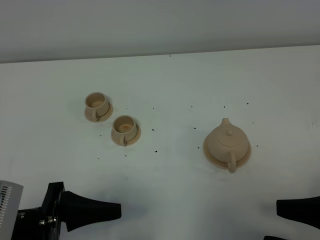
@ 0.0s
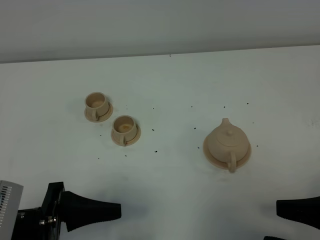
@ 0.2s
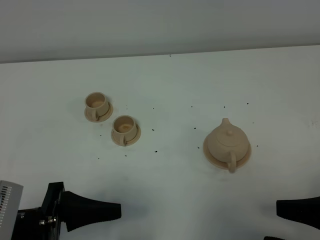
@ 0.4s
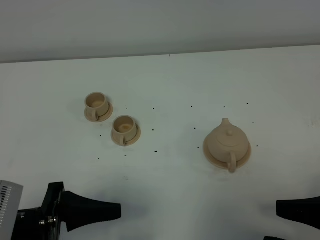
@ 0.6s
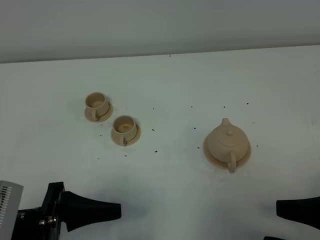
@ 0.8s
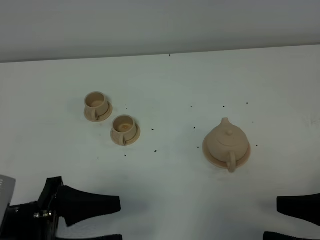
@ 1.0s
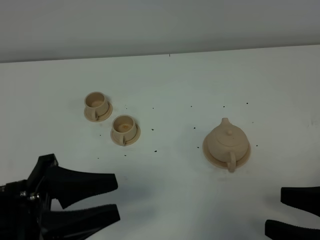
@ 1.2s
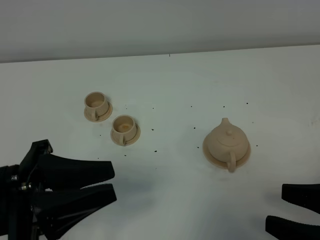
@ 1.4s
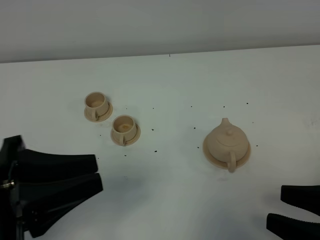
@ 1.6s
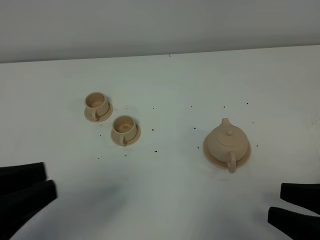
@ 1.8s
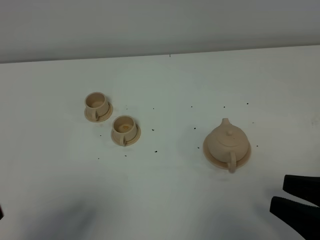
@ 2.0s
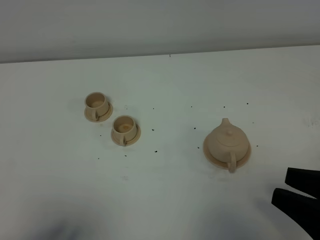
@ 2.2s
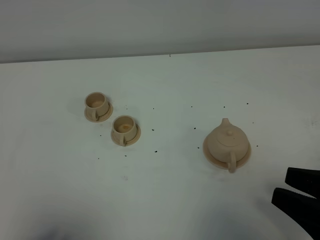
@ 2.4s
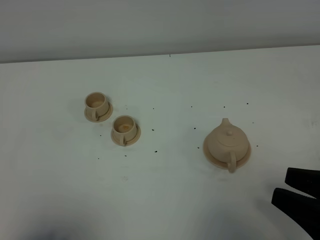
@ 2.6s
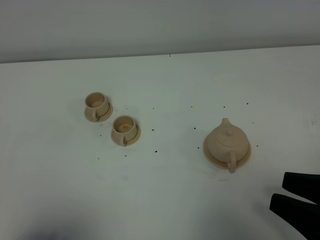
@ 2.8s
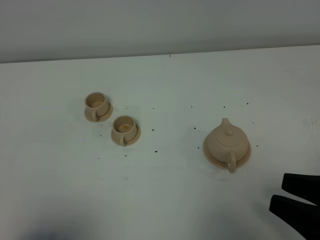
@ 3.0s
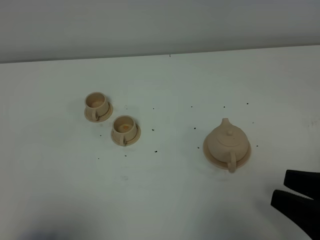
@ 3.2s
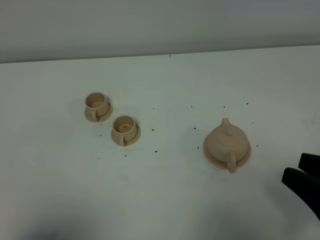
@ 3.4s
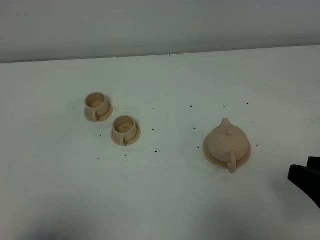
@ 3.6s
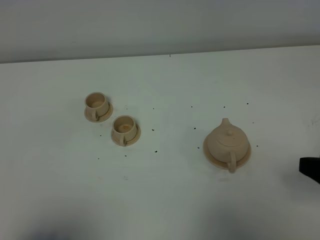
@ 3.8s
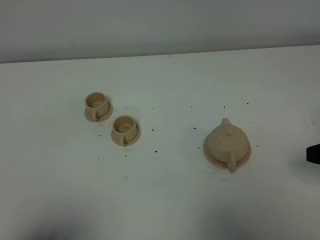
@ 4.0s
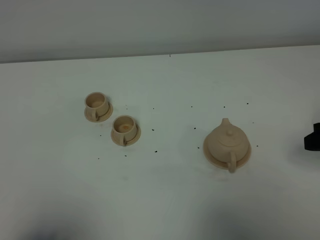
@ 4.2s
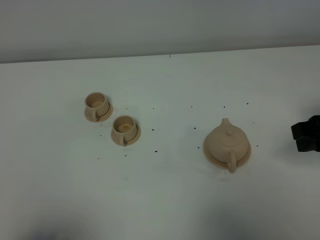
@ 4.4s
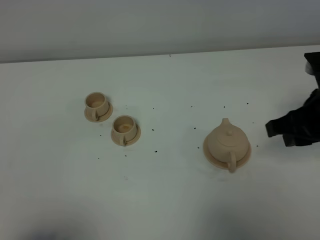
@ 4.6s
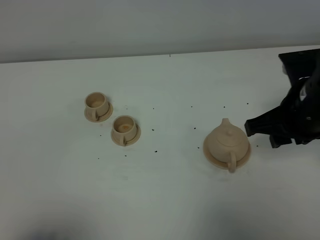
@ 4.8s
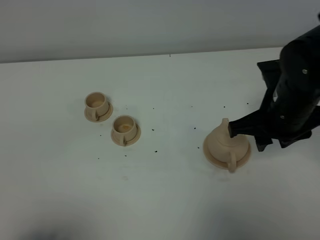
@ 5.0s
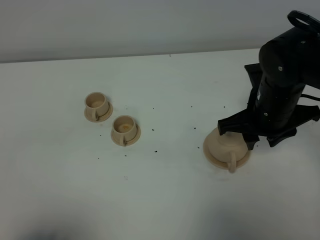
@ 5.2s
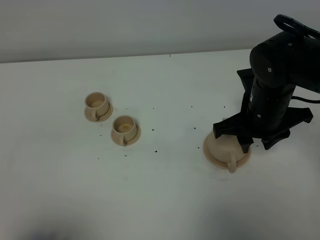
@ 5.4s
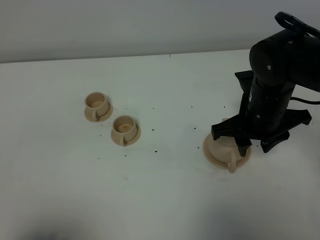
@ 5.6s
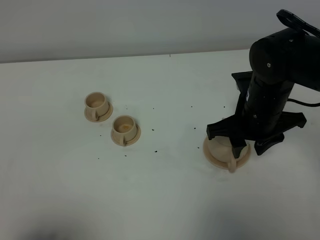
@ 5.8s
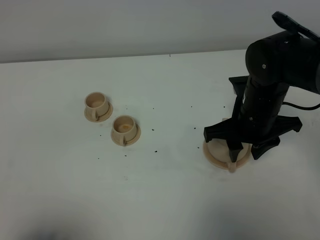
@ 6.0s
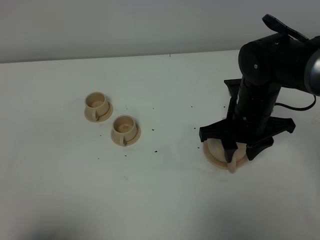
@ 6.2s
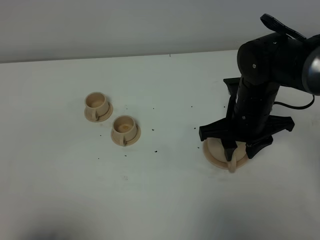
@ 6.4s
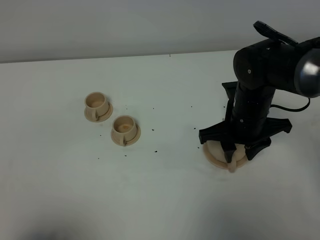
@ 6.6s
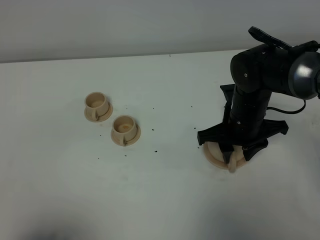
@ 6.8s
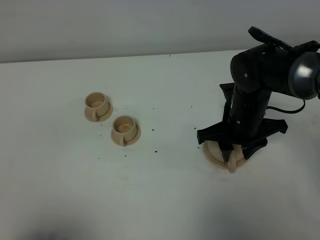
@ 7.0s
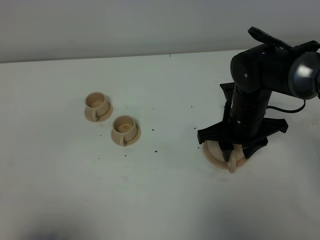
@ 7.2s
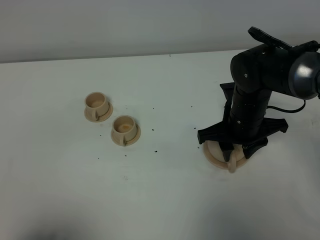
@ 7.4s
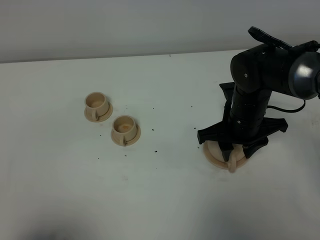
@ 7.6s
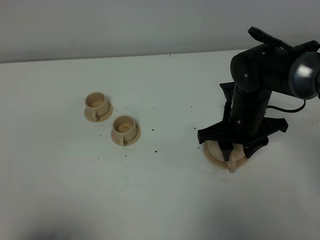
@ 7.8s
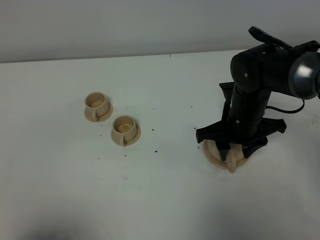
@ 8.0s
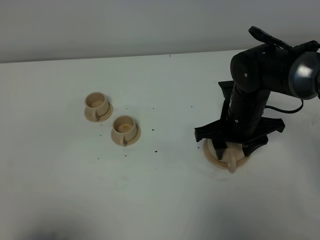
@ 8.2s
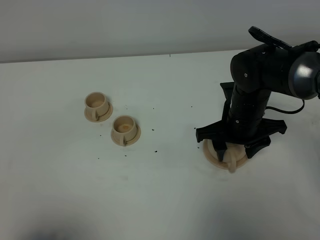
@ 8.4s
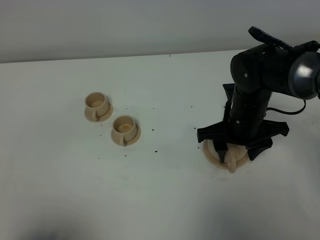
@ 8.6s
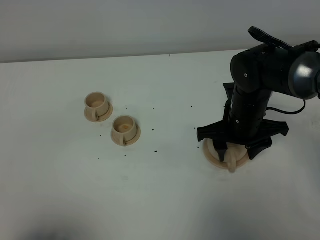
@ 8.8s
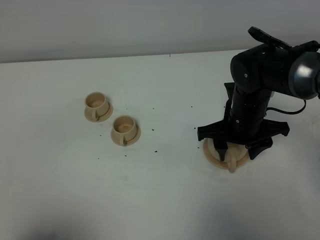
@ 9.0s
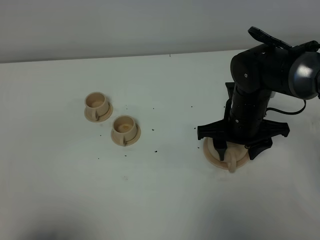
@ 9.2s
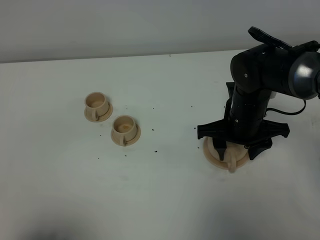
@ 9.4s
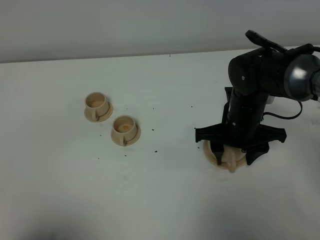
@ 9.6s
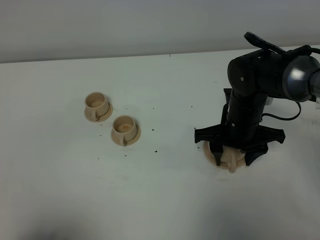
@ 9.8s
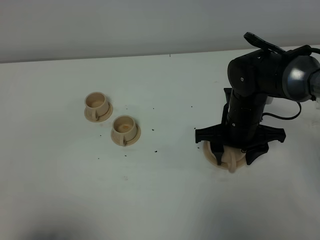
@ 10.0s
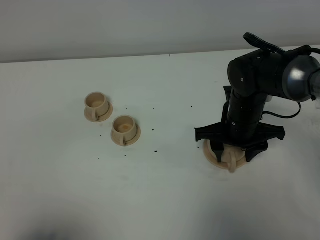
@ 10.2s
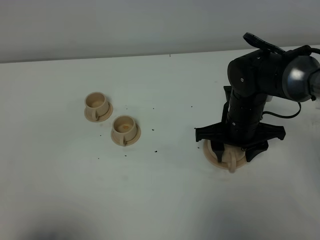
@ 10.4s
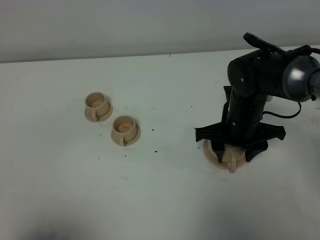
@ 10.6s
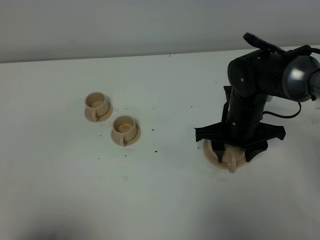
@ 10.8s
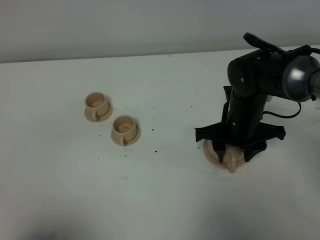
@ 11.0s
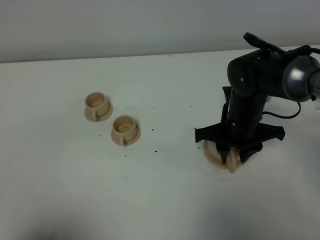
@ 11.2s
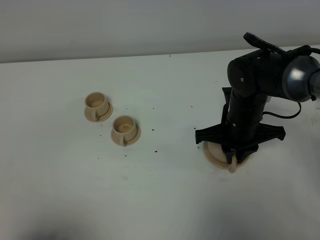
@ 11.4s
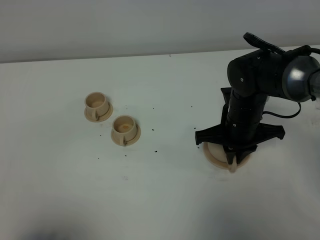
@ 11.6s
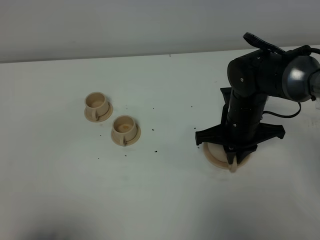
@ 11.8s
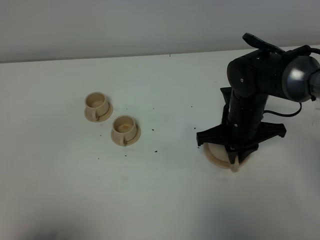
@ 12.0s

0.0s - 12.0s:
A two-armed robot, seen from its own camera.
Task of the whole recording: grasp the brown teapot and pour the tea into the two brown teacups one by one, put the brown teapot back in its original place.
0.0s - 1.6s: The left gripper is displaced upward by some 10 cm, and closes its fingers.
1.6s - 3.0s: The left gripper goes some 10 cm backward and to the left.
3.0s - 4.4s: The right gripper is displaced forward by about 15 cm.
4.4s - 6.0s: The right gripper moves to the left, downward and forward, about 15 cm.
6.0s - 9.0s: The grippers make only small movements.
9.0s - 10.4s: The two grippers keep their place.
10.4s - 12.0s: The right gripper closes up.

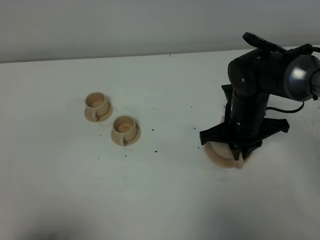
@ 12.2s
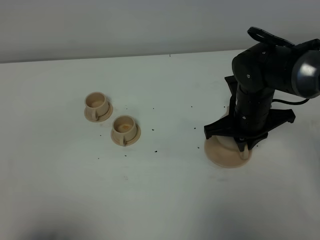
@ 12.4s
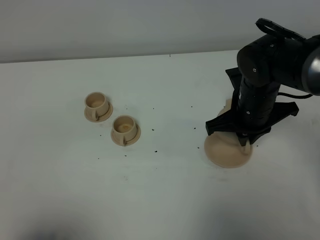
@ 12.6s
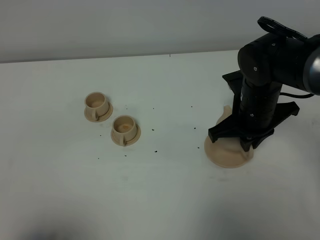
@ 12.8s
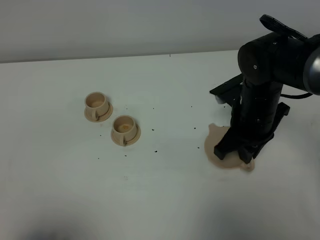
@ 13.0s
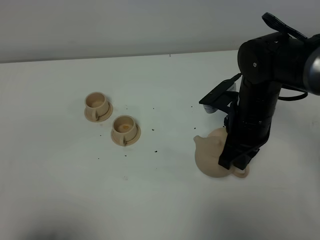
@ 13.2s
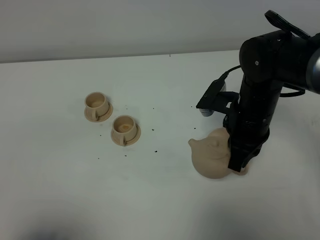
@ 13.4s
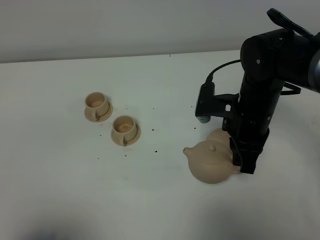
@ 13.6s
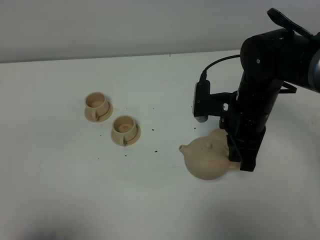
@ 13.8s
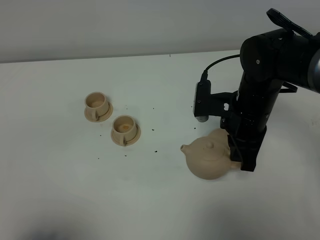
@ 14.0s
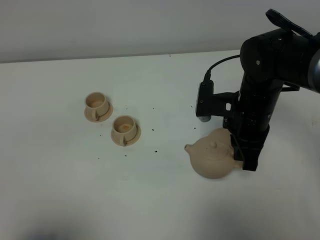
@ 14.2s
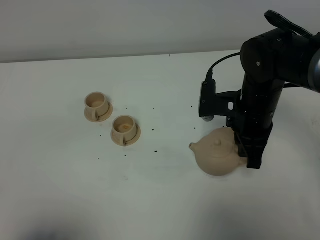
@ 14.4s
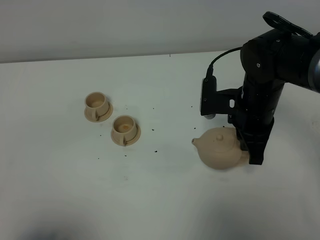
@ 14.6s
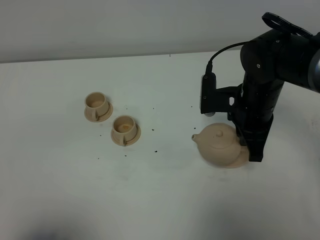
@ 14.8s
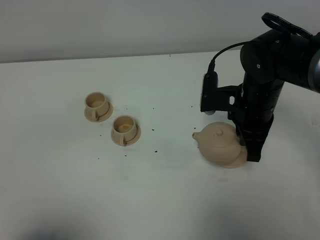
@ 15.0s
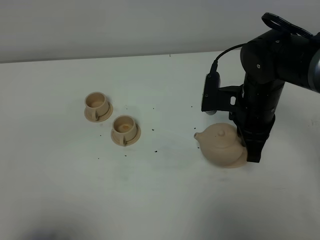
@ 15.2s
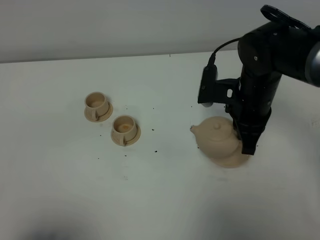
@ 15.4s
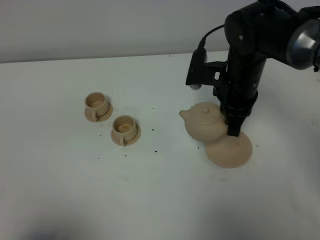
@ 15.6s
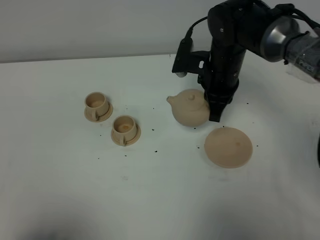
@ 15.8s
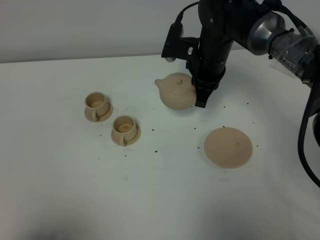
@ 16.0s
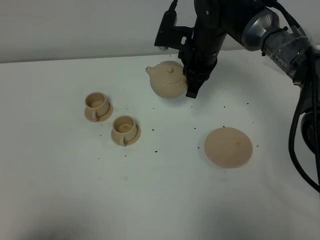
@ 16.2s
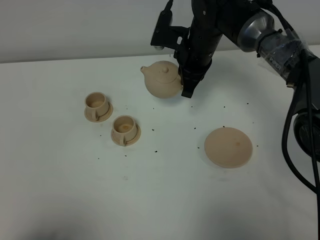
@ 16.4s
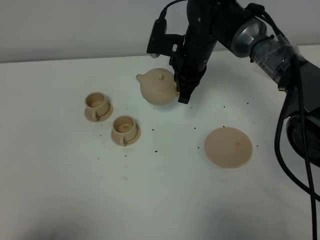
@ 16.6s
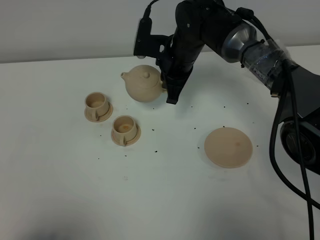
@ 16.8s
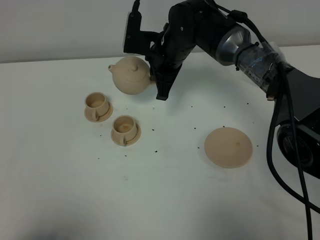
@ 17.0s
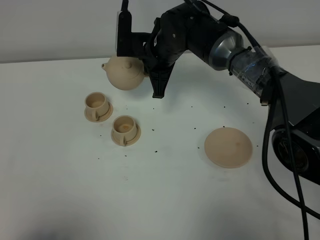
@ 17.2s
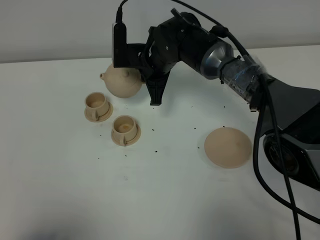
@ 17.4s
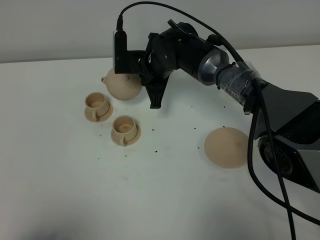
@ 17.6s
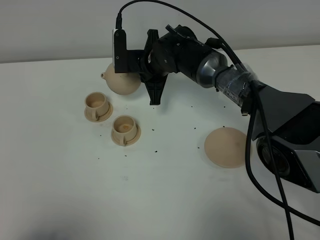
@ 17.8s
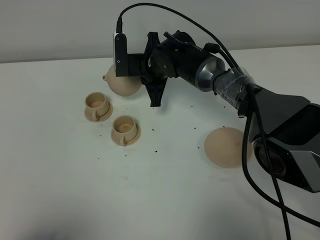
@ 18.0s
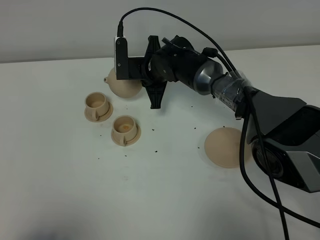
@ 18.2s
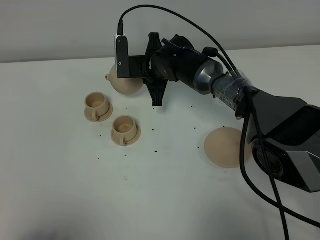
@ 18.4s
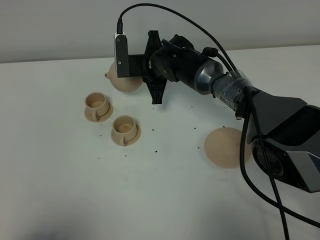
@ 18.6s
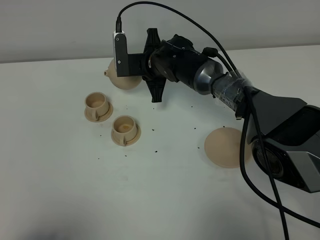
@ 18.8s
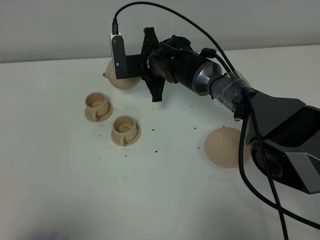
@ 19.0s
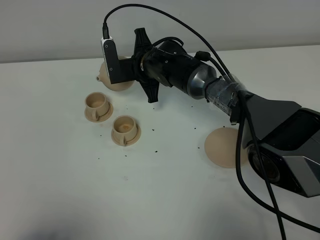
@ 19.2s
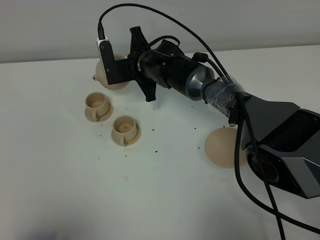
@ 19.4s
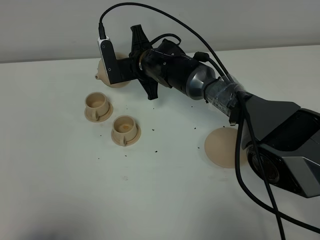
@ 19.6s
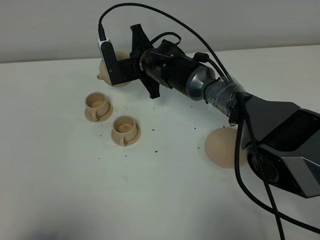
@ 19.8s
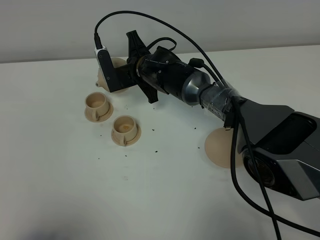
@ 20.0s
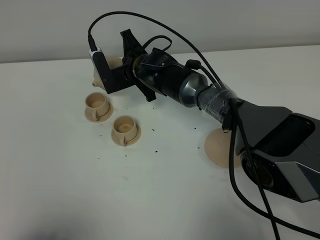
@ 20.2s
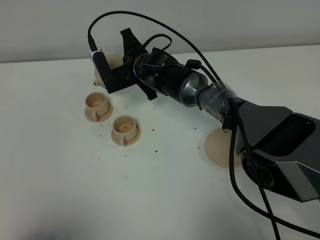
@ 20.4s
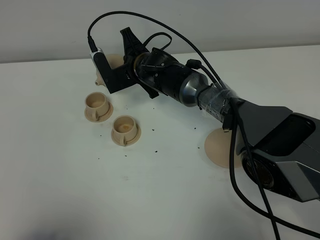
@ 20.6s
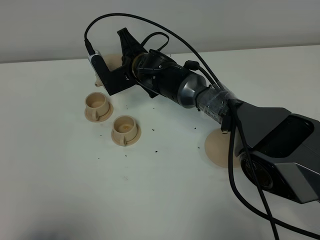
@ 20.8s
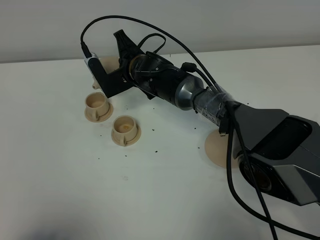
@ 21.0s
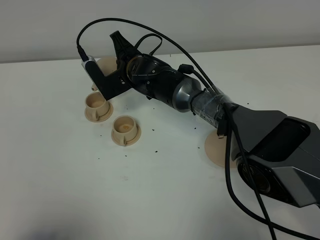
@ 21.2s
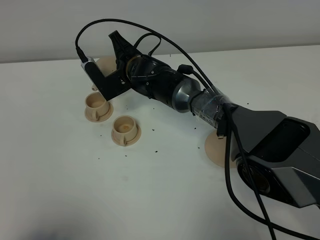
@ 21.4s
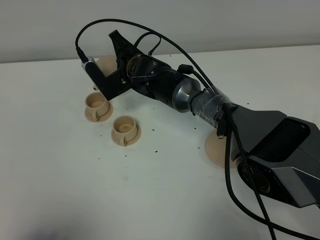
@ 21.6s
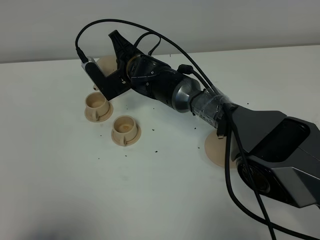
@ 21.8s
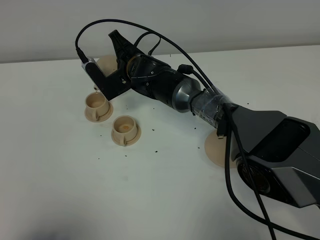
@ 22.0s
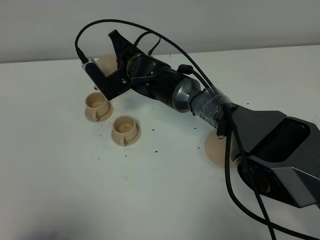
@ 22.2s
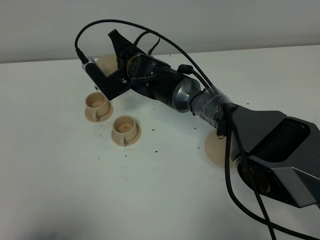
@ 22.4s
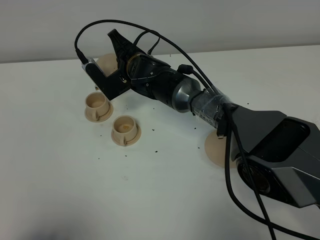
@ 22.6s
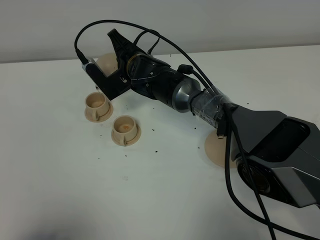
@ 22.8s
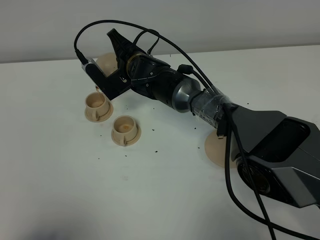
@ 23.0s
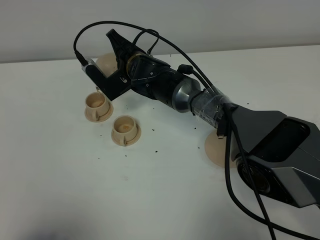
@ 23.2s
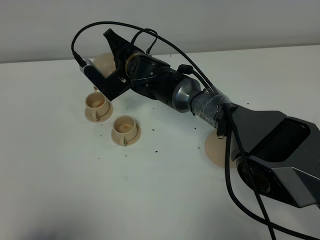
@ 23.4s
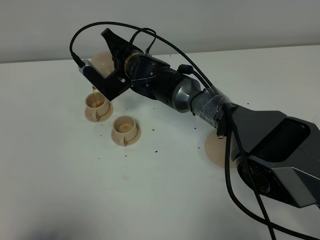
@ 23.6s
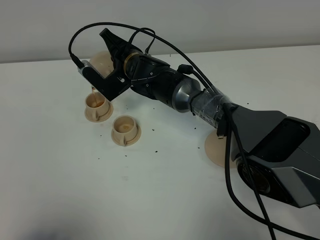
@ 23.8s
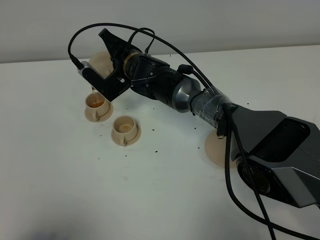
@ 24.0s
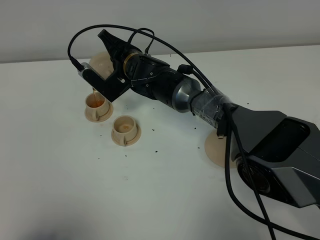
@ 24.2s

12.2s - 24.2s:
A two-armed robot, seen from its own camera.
Task of the whole recording: grasp the brown teapot and pour the tea into the two brown teacups one by one, put the brown teapot back in its original place.
13.8s - 15.2s: The grippers stay close to where they were, moving slightly.
15.2s - 16.6s: The right gripper shifts approximately 15 cm forward and to the left.
16.6s - 18.2s: The right gripper goes roughly 10 cm to the left and downward.
19.8s - 21.2s: The grippers stay close to where they were, moving slightly.
21.2s - 24.2s: The grippers stay close to where they were, moving slightly.
